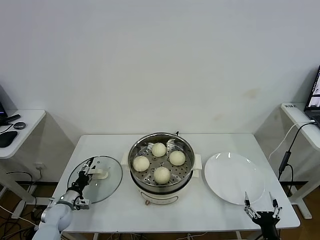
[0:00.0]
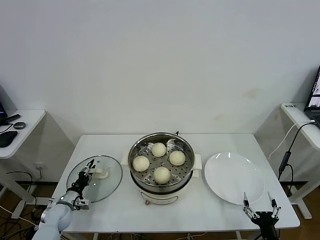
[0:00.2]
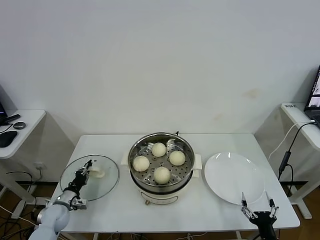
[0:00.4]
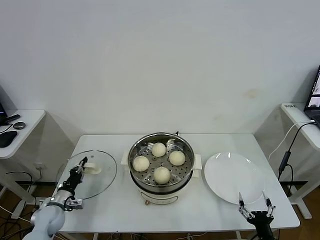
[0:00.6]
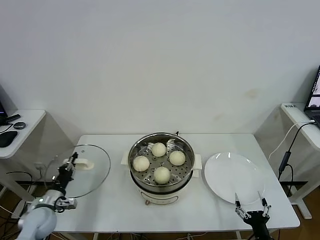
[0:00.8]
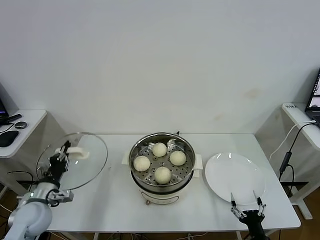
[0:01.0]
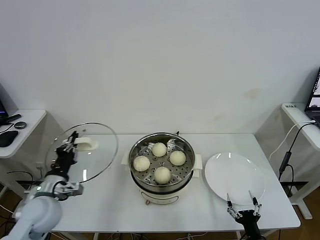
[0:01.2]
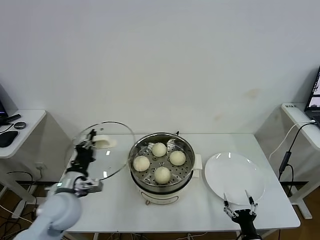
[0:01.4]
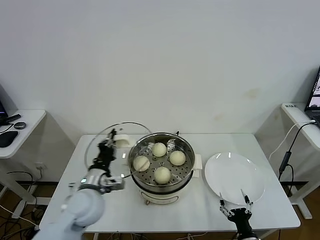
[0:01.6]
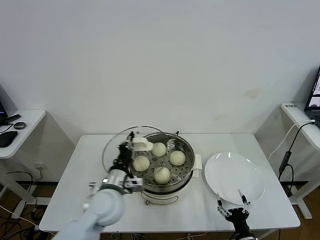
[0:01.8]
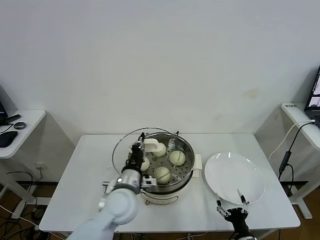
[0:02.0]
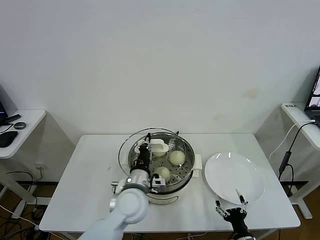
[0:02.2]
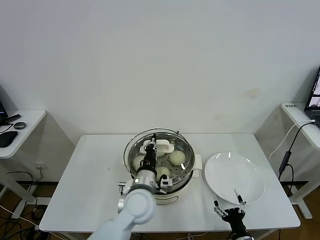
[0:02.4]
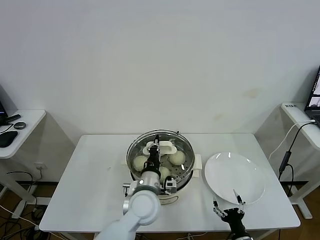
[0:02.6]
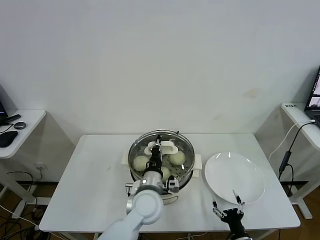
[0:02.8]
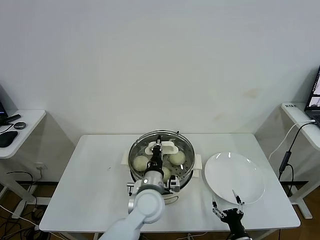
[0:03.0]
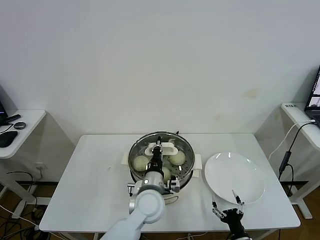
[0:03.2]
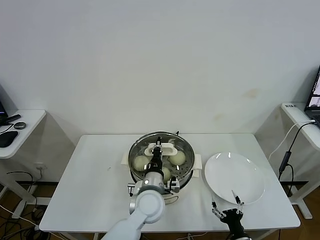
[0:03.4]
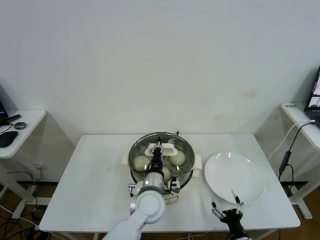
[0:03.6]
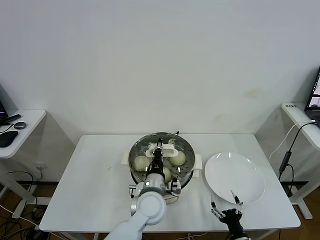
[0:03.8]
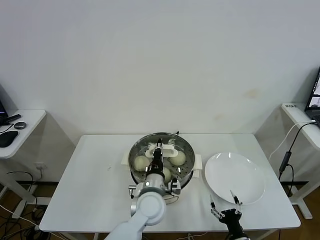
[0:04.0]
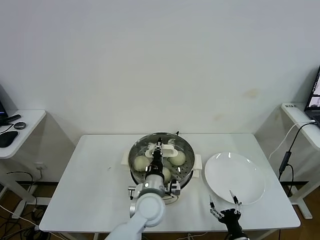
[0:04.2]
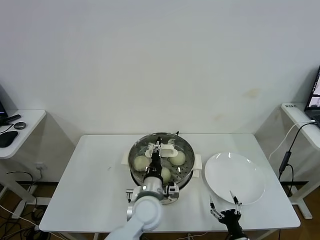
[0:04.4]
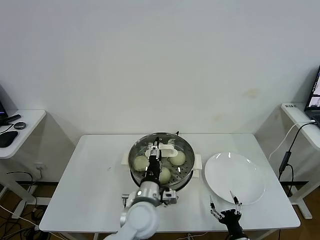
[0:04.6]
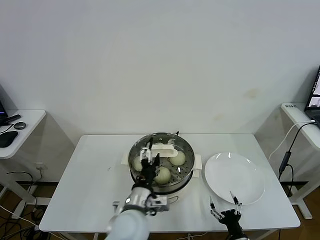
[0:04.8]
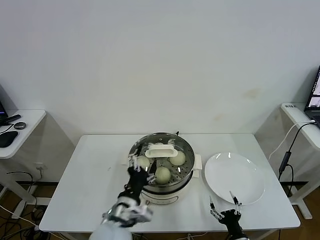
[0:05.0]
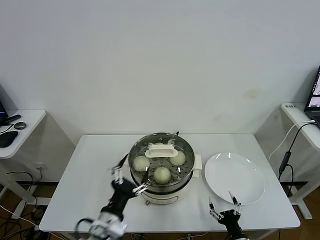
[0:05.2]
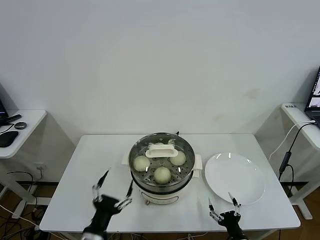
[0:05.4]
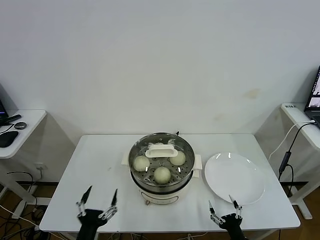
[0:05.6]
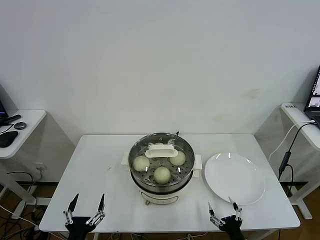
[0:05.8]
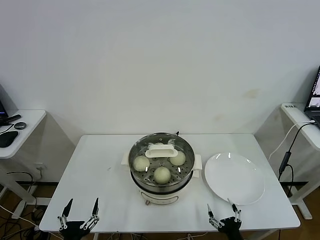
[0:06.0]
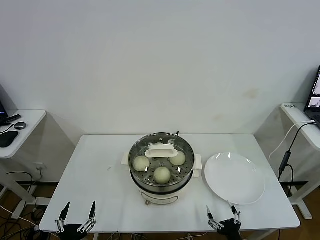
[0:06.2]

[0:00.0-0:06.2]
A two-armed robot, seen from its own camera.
Task of the whole recording: take steamed baozi put them in steamer.
Step, 0:00.8 to 0:05.0: Place the pot lid on the steamer with left gripper.
0:00.0 to 0:01.6: The left gripper heads upward and to the right, covering roughly 30 cm, and closes up, while the right gripper ends up about 5 cm from where it was.
0:01.6 to 0:03.2: The left gripper heads to the right, covering about 20 cm.
0:03.2 to 0:04.6: The left gripper opens up.
0:04.6 to 0:06.2: The left gripper is displaced to the left and backward by about 30 cm, and opens its fingers, while the right gripper changes place by approximately 5 cm.
